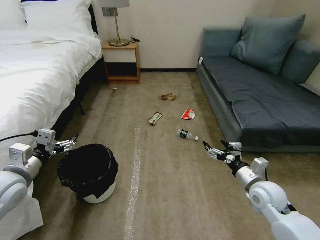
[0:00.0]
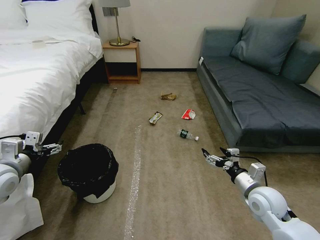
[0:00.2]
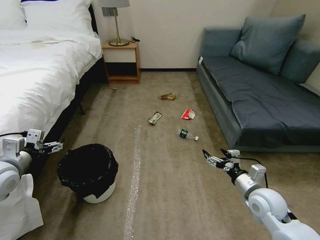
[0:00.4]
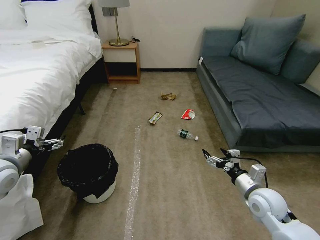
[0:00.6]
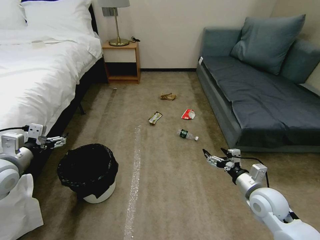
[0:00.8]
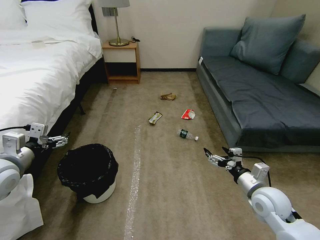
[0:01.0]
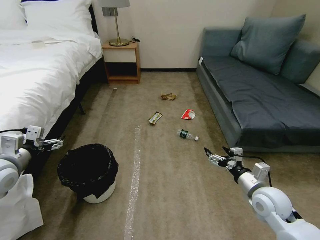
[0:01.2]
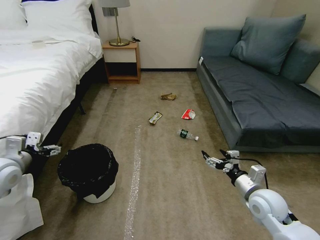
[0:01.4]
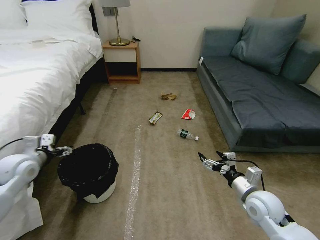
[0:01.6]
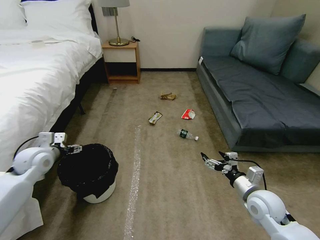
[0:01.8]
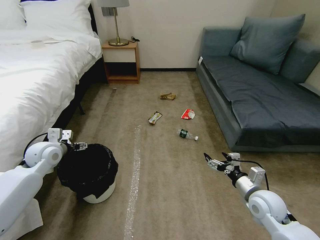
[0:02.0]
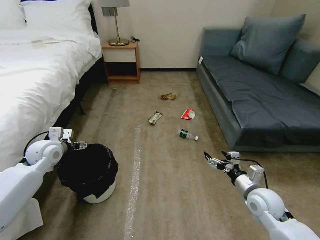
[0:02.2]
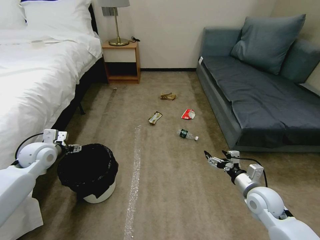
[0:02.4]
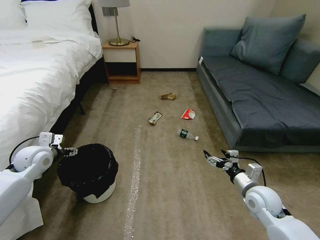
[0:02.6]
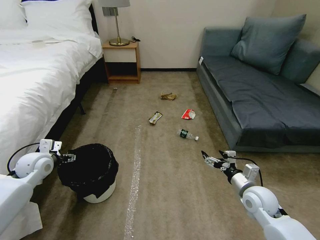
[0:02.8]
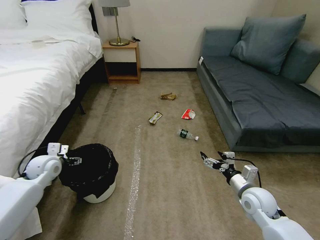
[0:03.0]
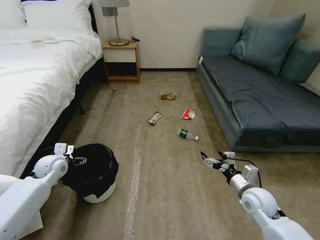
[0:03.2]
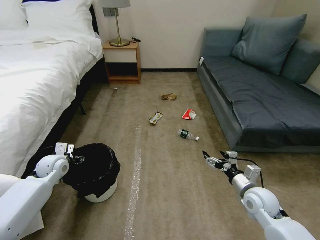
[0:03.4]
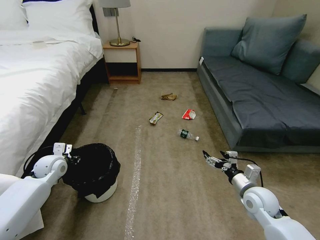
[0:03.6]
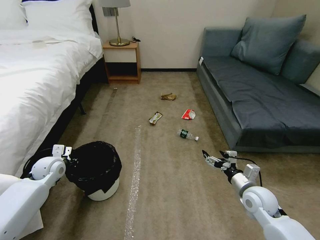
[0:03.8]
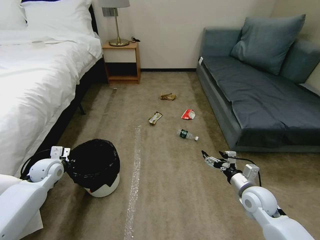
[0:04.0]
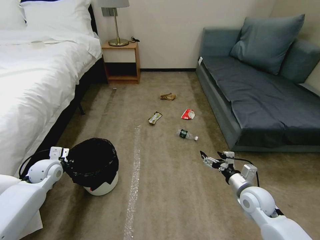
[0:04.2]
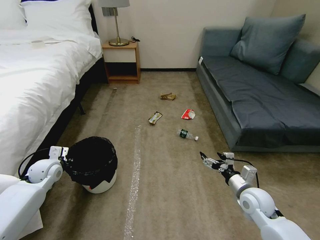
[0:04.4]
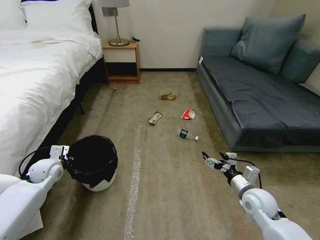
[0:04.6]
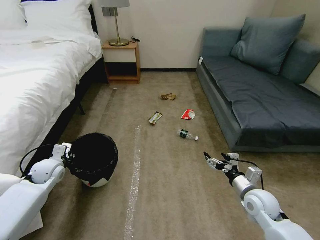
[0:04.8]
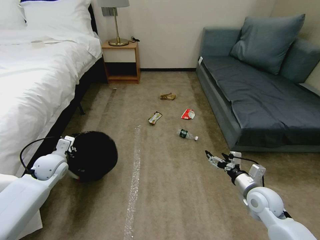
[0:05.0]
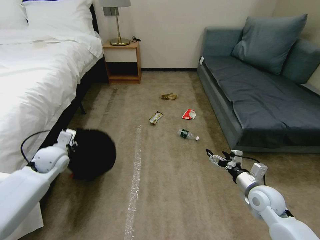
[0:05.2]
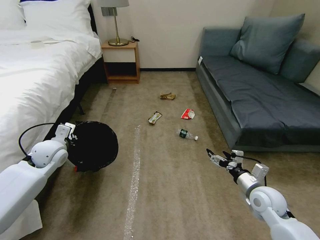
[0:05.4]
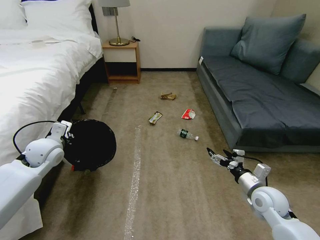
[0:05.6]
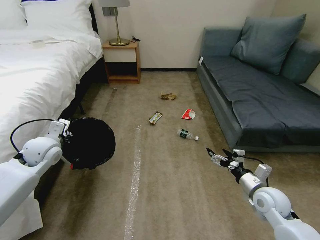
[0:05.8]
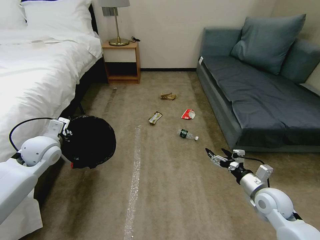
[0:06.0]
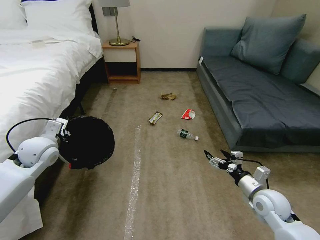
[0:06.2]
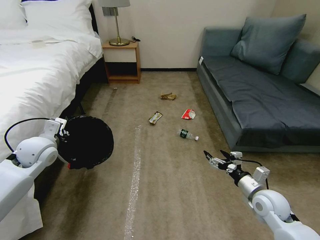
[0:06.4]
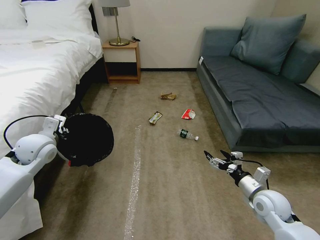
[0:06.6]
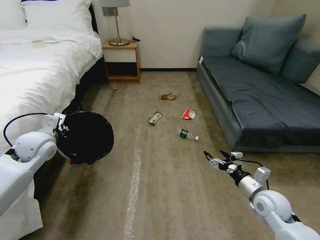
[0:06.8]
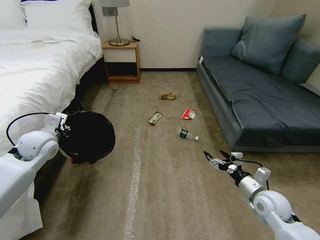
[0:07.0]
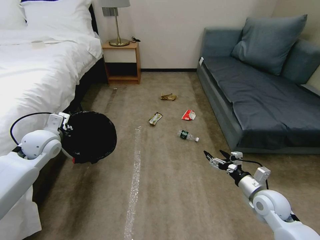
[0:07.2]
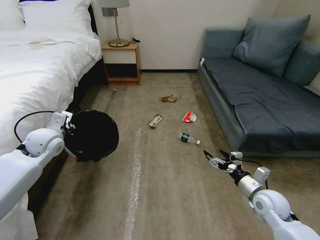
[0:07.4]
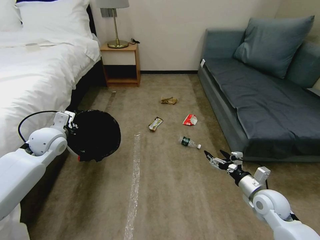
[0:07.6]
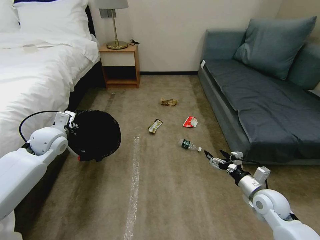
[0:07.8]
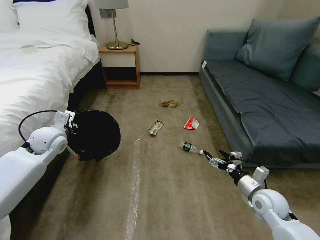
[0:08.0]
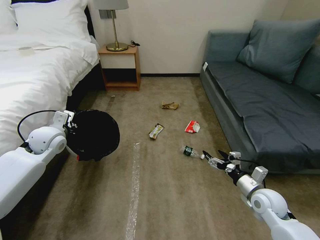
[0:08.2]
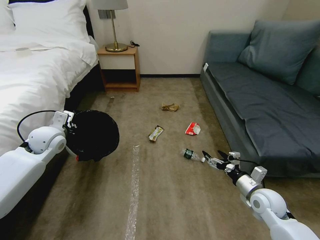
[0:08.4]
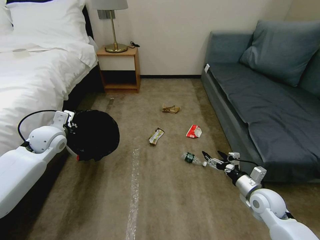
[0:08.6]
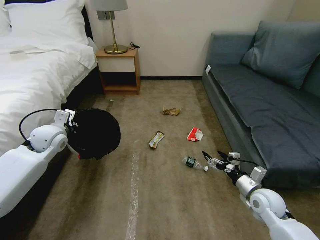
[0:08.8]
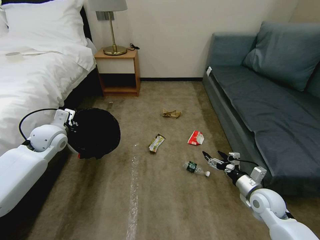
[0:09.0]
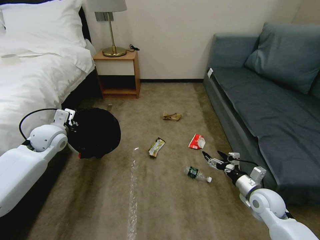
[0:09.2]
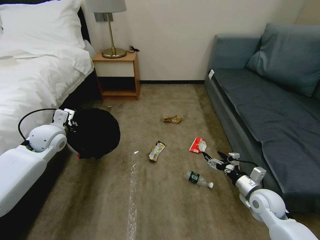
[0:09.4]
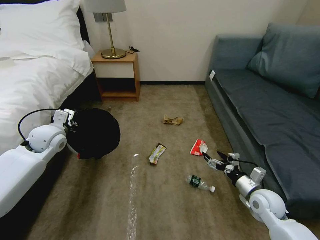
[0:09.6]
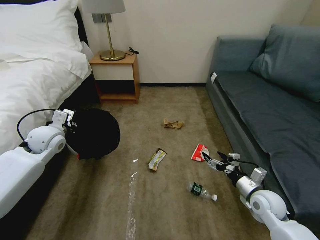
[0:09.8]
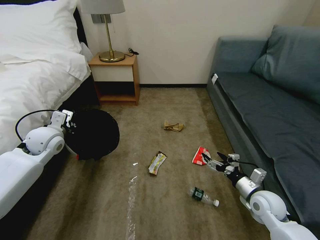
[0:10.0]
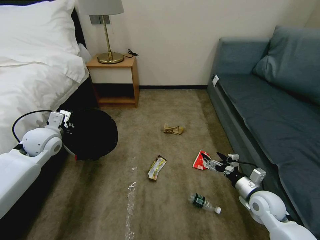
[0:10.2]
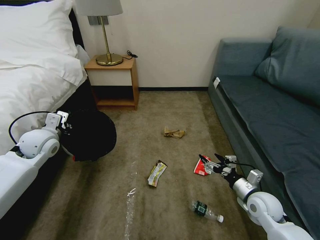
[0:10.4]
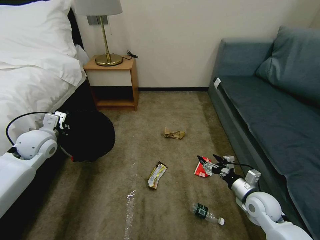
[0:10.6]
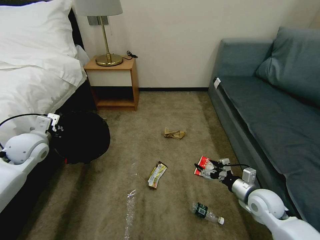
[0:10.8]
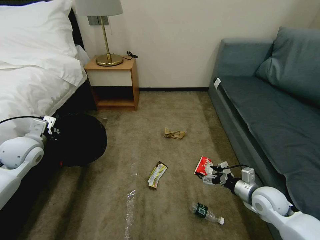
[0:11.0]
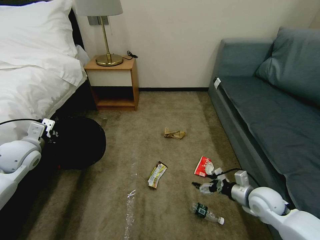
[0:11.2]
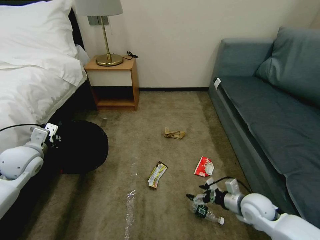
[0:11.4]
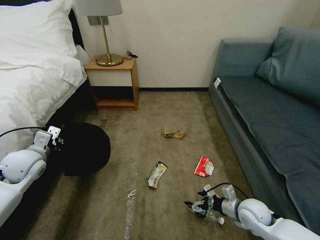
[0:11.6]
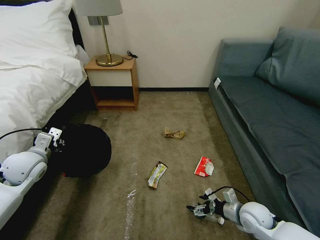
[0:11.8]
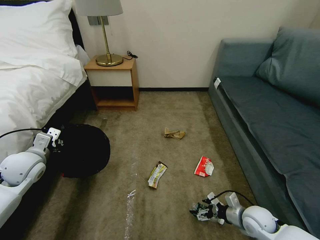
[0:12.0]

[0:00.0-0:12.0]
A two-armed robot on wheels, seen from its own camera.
Task of the whole recording: Pick up the trash bin, then pick up the garbage on the floor and place it into the trash bin.
0:01.6 to 0:03.0: The left gripper shifts approximately 10 cm downward.
0:03.0 to 0:04.4: The left gripper closes up.
0:04.4 to 0:06.0: The left gripper shifts some 10 cm upward.
0:06.0 to 0:07.6: There are only small adjustments of the grippers.
0:10.4 to 0:12.0: The left gripper shifts some 5 cm backward; the right gripper shifts about 5 cm downward.

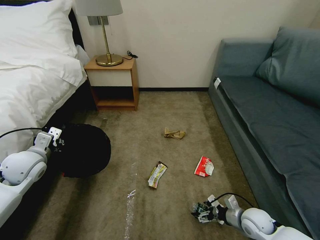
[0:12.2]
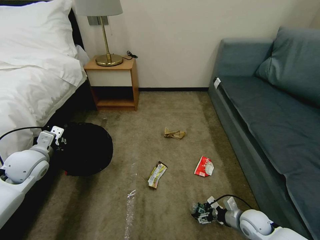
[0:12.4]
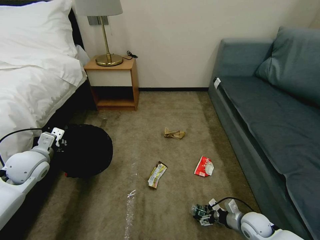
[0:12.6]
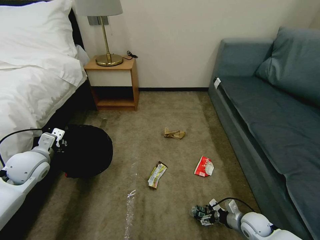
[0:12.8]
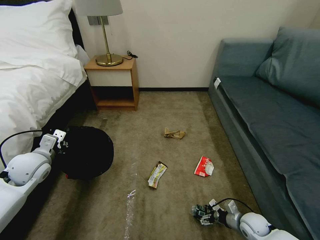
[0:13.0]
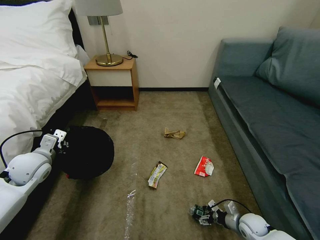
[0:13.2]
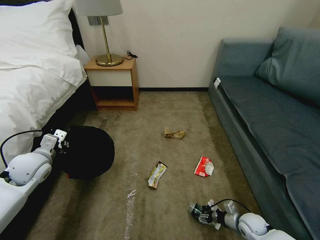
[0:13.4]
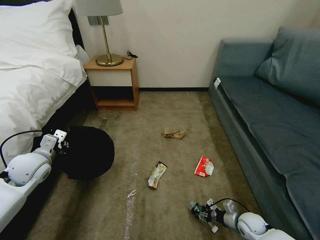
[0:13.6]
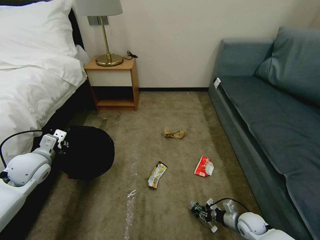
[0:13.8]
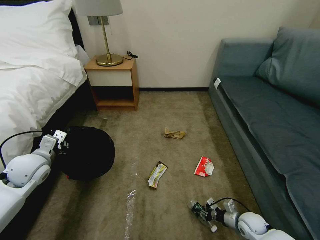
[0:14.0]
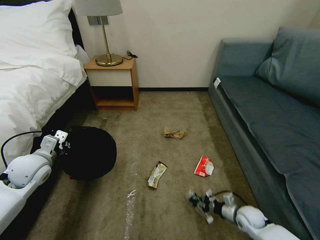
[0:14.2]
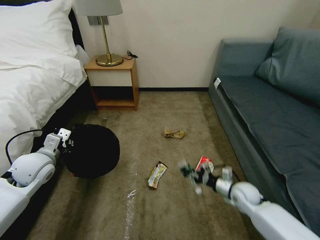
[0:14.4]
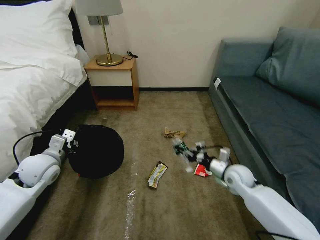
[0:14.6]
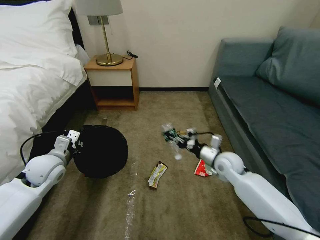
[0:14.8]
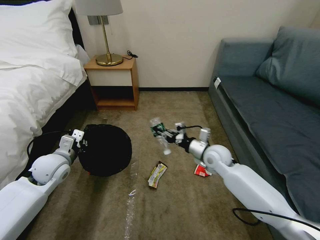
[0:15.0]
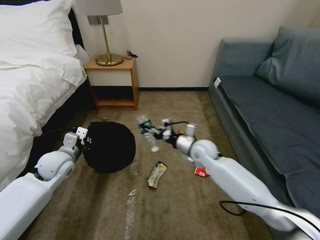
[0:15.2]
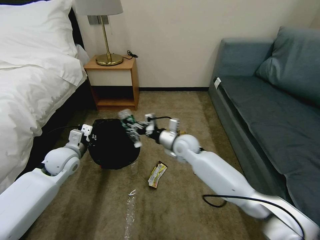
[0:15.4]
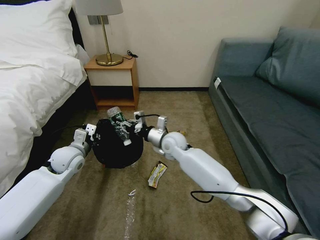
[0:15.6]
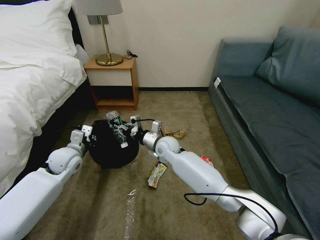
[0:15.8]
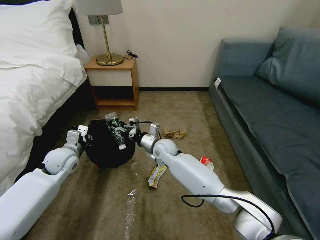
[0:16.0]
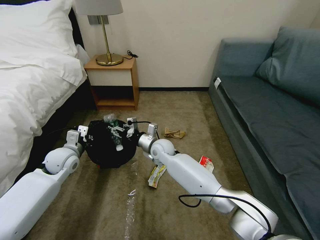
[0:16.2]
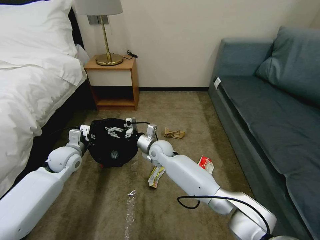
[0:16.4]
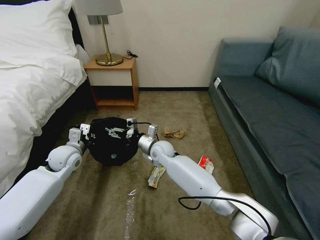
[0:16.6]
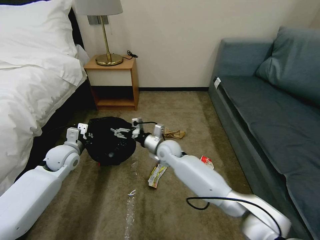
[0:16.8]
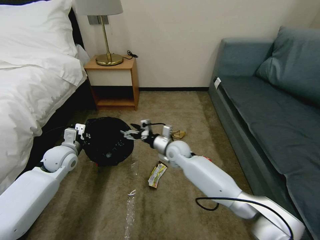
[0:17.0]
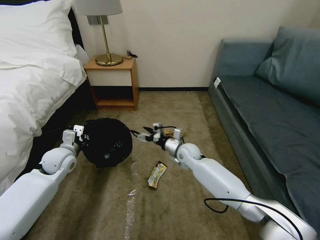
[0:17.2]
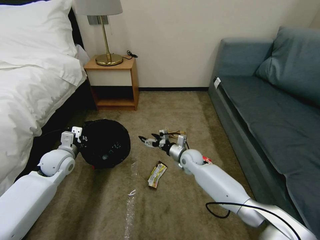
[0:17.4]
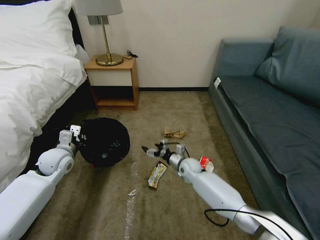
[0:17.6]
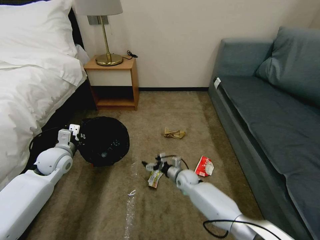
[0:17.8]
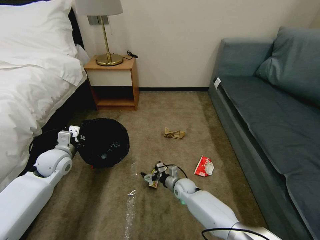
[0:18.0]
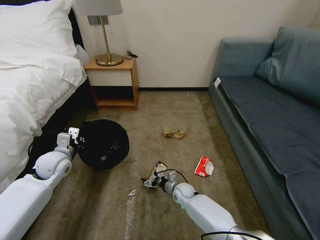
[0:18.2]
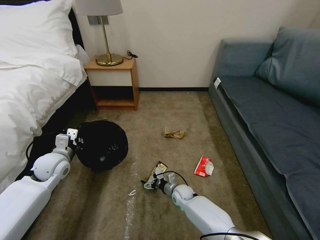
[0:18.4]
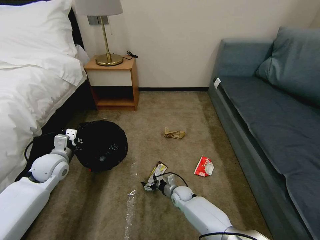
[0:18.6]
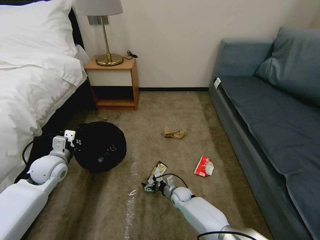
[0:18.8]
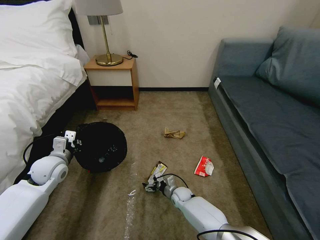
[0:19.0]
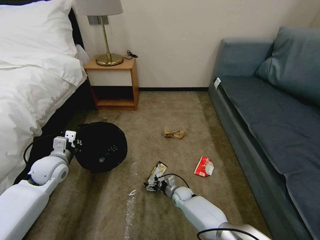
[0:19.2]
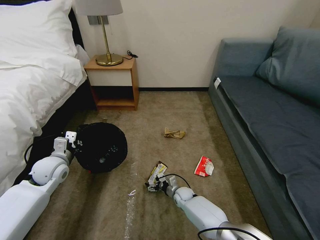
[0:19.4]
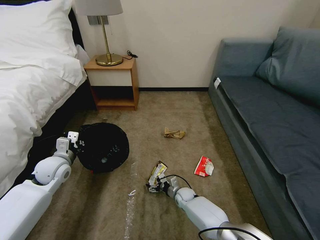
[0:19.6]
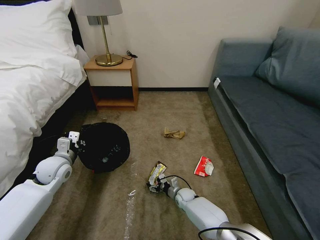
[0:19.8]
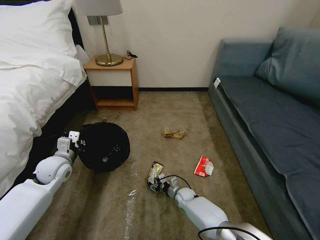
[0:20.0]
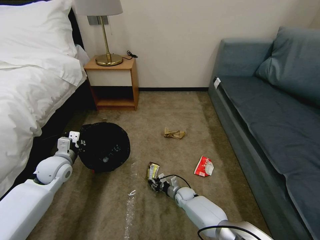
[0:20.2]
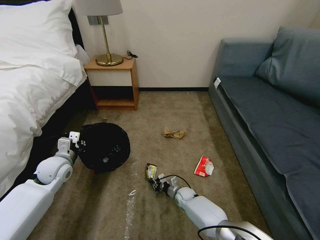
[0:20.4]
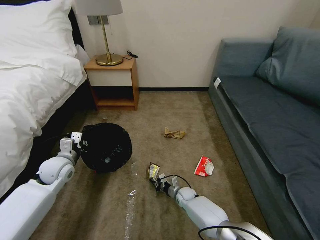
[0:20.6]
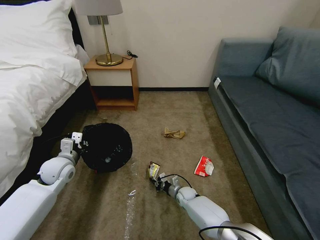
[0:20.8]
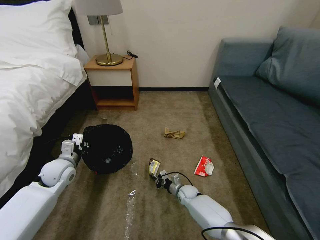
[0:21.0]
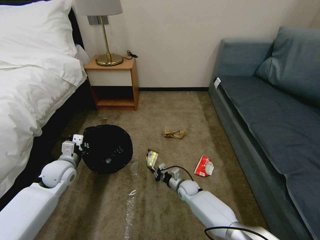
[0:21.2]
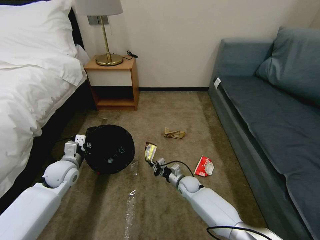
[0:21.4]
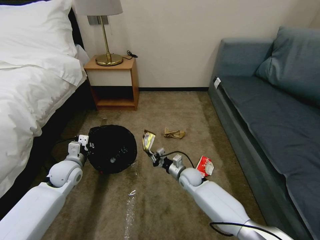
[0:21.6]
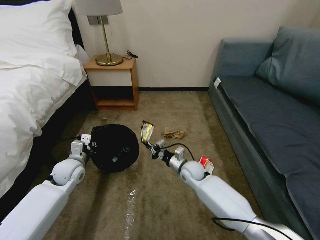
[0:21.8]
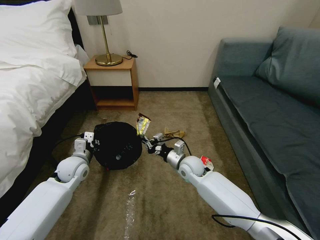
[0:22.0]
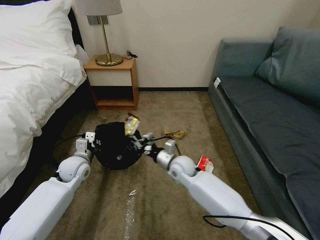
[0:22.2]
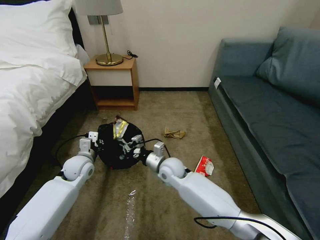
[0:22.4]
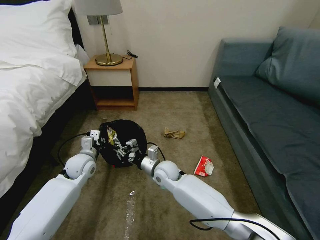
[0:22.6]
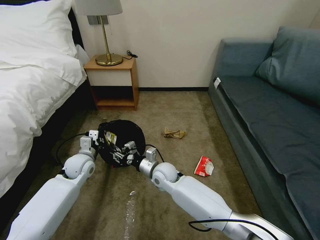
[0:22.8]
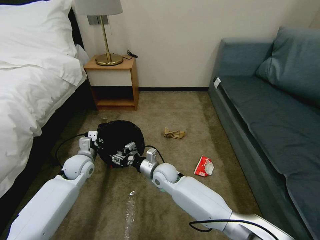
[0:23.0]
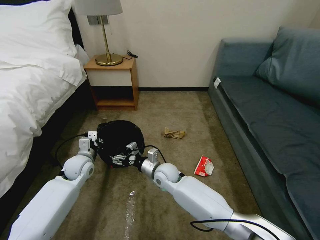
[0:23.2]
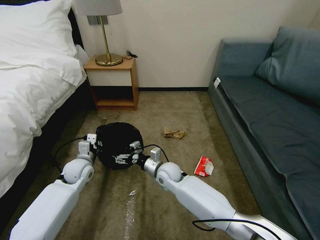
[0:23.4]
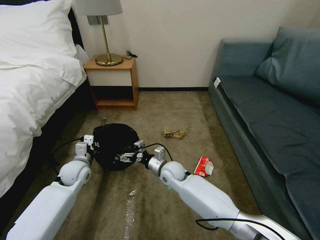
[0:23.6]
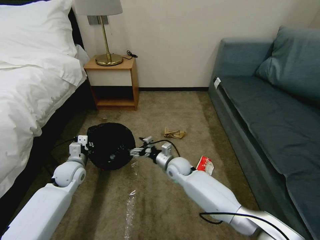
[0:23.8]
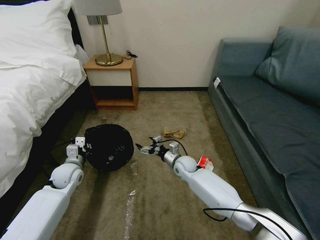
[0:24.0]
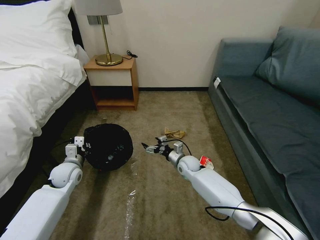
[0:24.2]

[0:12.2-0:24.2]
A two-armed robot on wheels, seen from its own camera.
Task of the whole recording: Pick up the trash bin, then pick up the garbage on the floor and place it into the trash bin.
0:12.2 to 0:13.8: The right gripper is displaced downward by some 5 cm, and closes up.
0:13.8 to 0:15.2: The left gripper goes roughly 5 cm to the right. Meanwhile the right gripper travels upward, to the left and forward by some 35 cm.
0:15.2 to 0:16.6: The right gripper heads to the left, covering roughly 15 cm, and opens its fingers.
0:16.6 to 0:18.2: The right gripper heads downward, to the right and backward, covering about 25 cm.
0:18.2 to 0:19.8: The right gripper shifts roughly 5 cm downward.
0:19.8 to 0:21.2: The right gripper moves upward, about 5 cm, and closes.
0:21.2 to 0:22.6: The right gripper moves upward and to the left, some 20 cm. Meanwhile the left gripper goes some 5 cm to the right.
0:22.6 to 0:24.2: The left gripper goes about 5 cm to the left. The right gripper travels to the right, forward and downward by roughly 15 cm, and opens.
